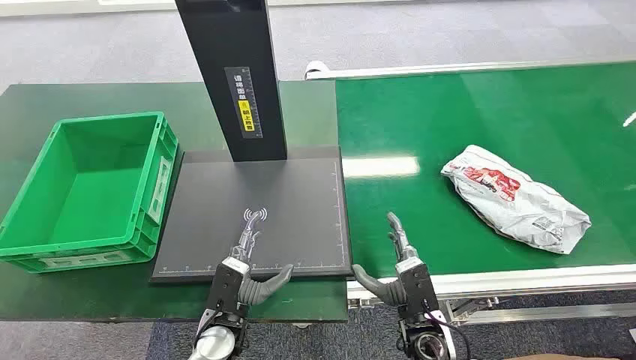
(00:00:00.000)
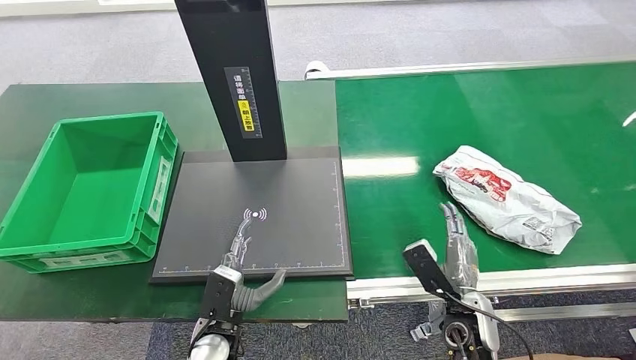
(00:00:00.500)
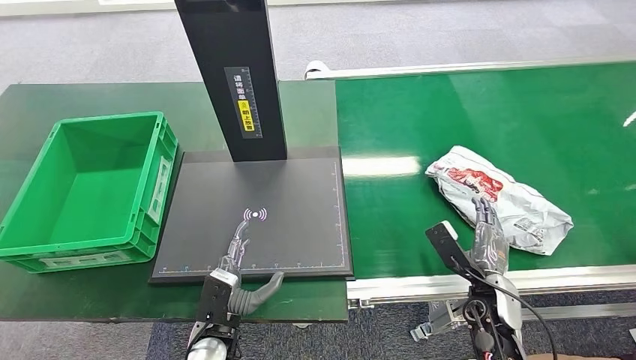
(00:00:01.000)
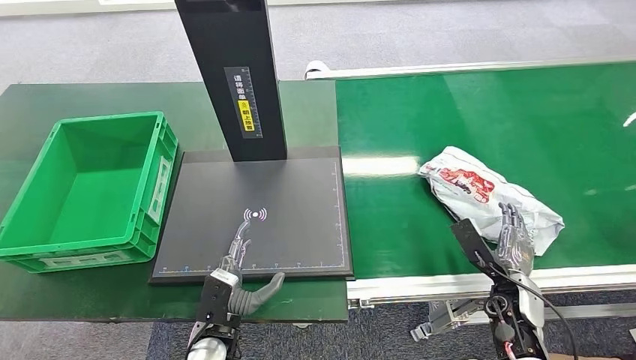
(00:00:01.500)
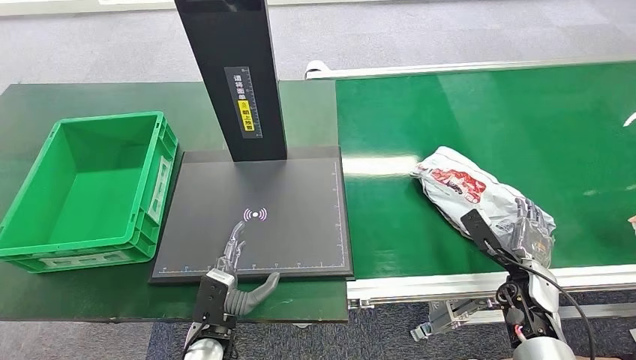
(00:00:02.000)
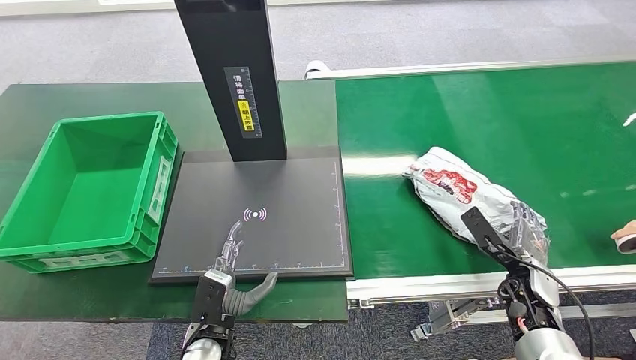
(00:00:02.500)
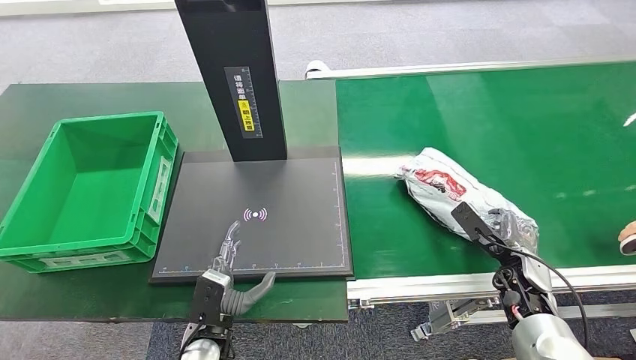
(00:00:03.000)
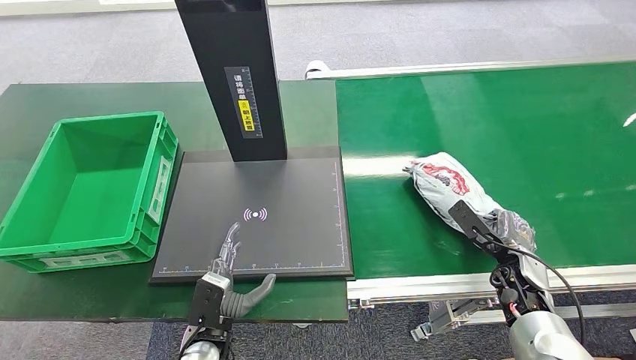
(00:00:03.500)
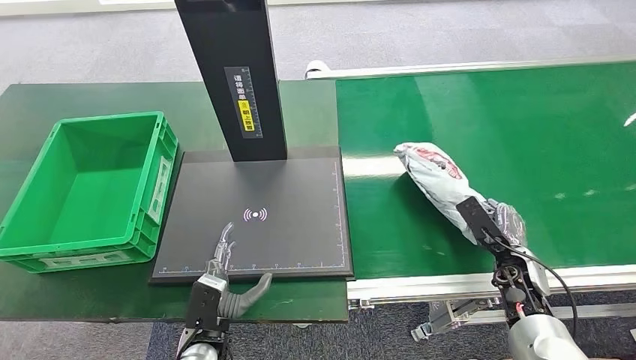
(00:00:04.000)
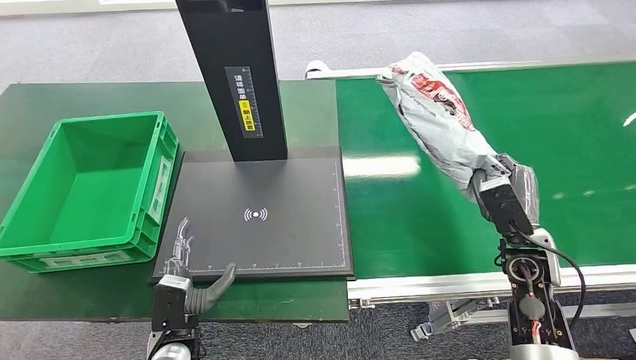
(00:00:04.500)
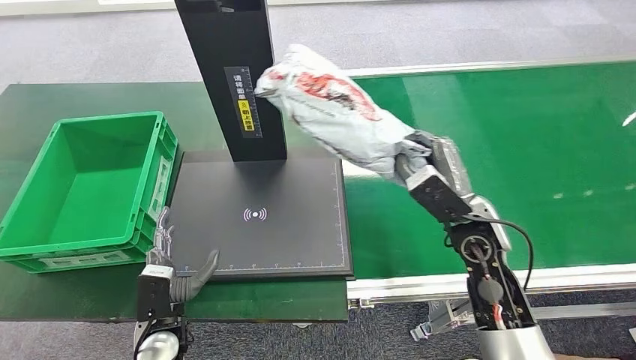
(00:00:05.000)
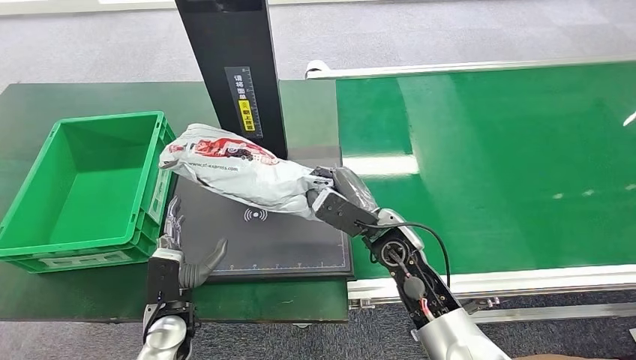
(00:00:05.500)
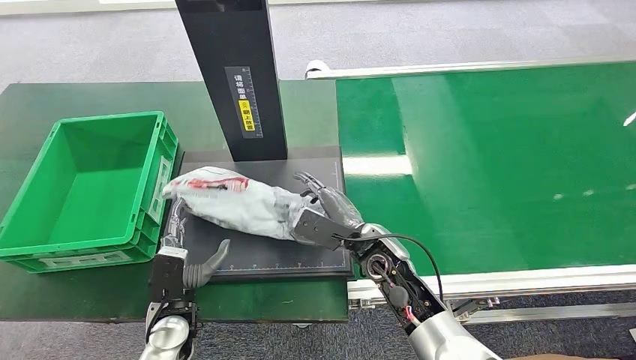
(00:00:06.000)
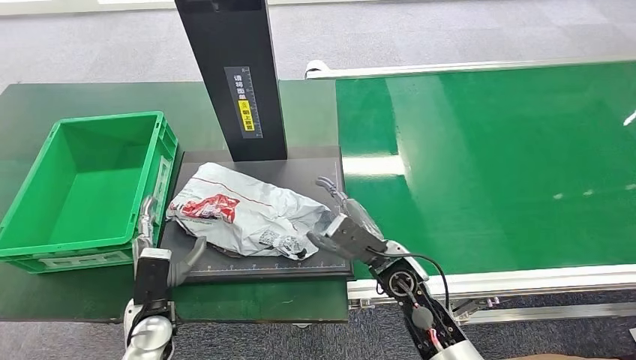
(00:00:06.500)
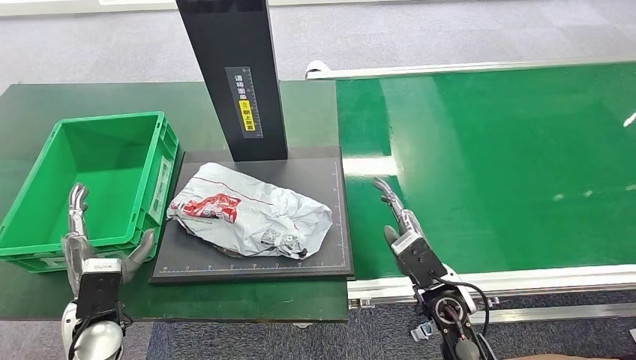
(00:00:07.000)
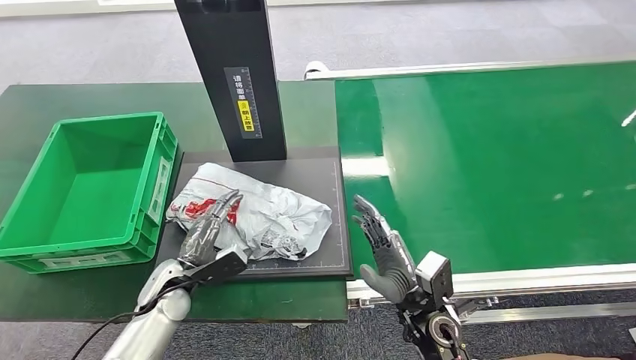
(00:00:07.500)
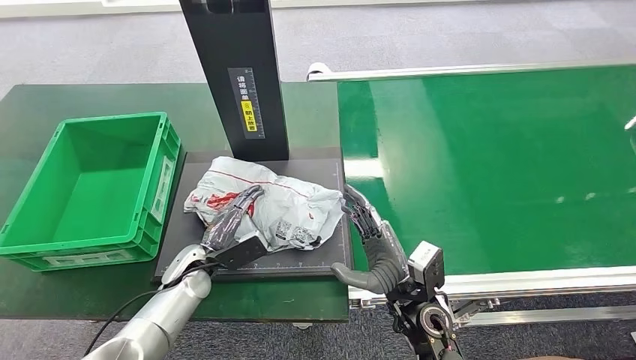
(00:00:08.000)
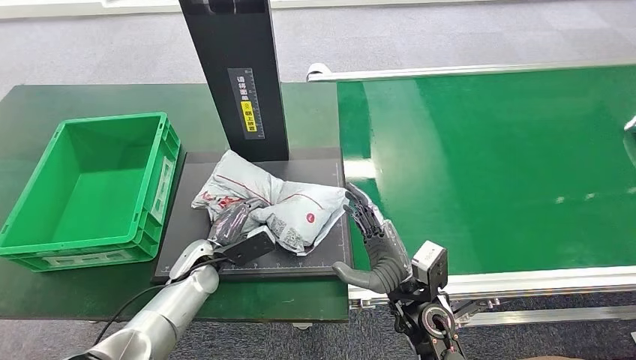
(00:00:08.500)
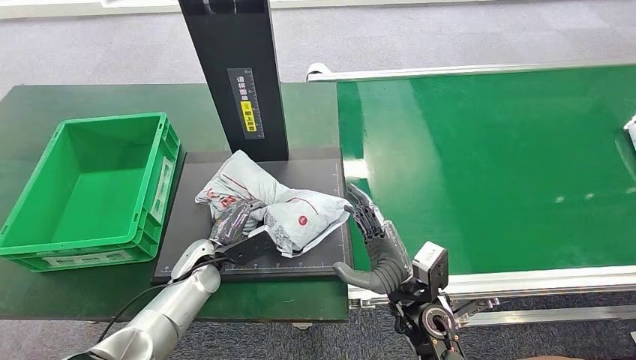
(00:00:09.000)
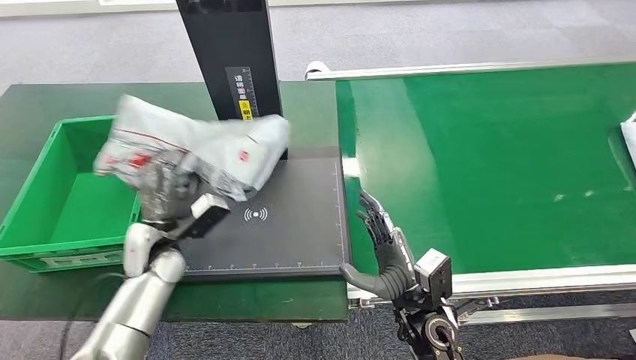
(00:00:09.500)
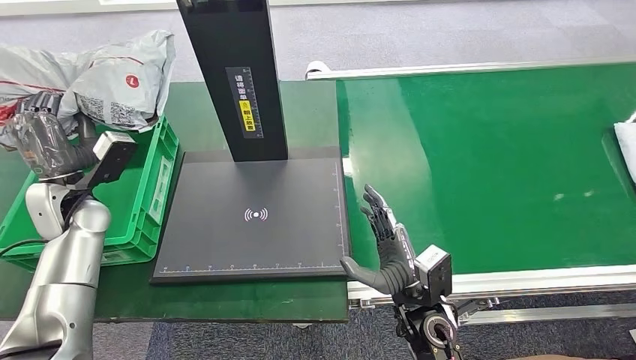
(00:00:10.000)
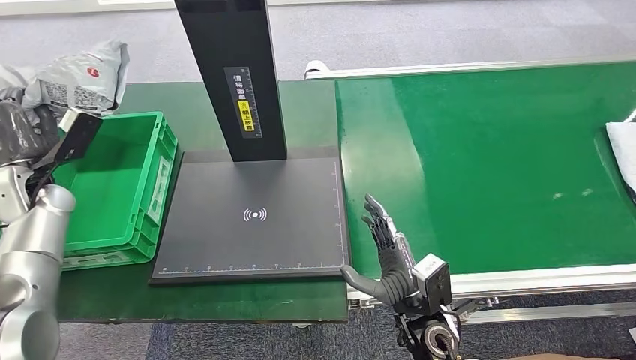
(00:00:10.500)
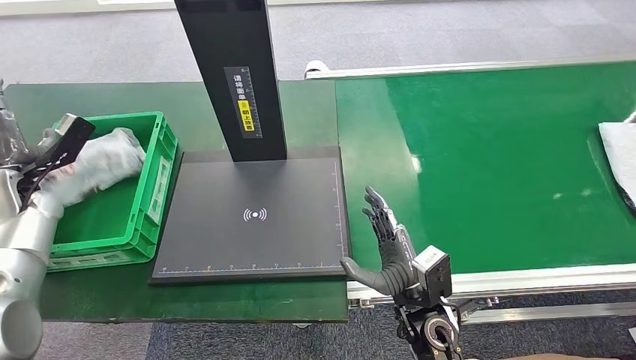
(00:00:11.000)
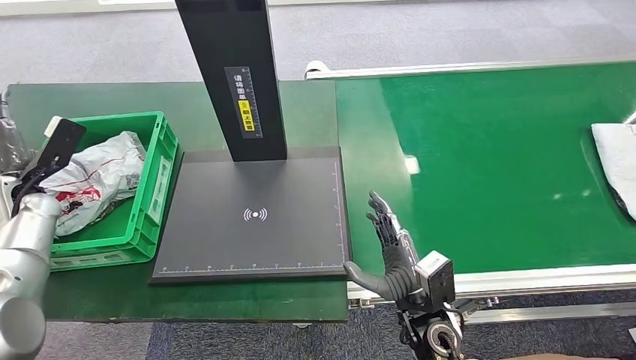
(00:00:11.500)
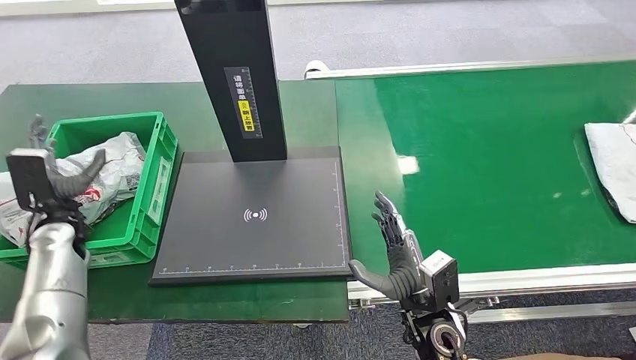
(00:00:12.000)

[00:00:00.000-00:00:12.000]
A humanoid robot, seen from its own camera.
Step, 00:00:00.000 to 00:00:04.500: Pick up the package from the conveyor belt.
Step, 00:00:05.000 to 00:00:06.500: Place the package onto the inbound machine.
Step, 00:00:07.000 to 00:00:10.000: Pick up the package from the inbound machine.
Step, 00:00:10.500 to 00:00:12.000: Place the package into the parcel locker.
00:00:02.000 to 00:00:04.000: The hands make only small movements.
